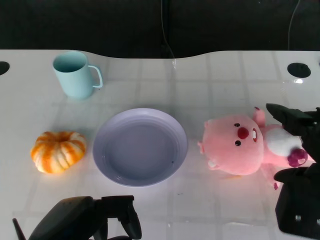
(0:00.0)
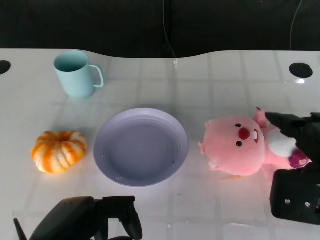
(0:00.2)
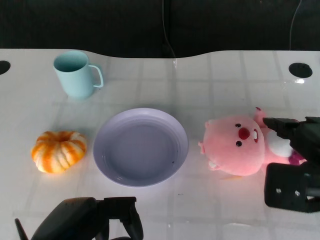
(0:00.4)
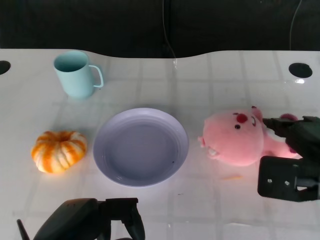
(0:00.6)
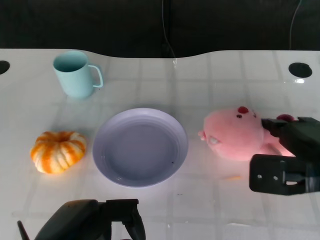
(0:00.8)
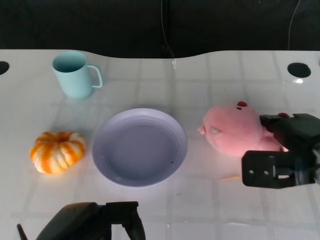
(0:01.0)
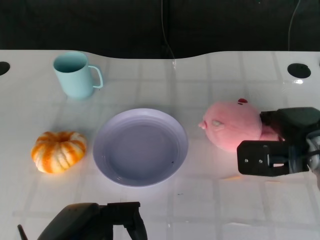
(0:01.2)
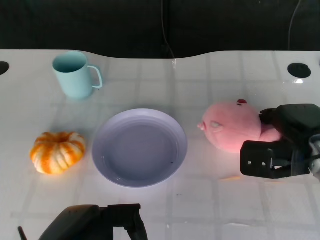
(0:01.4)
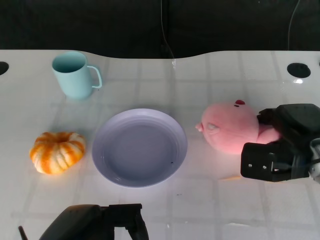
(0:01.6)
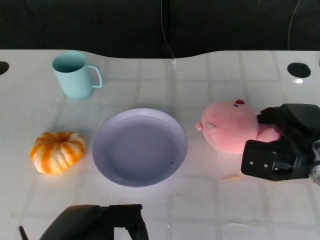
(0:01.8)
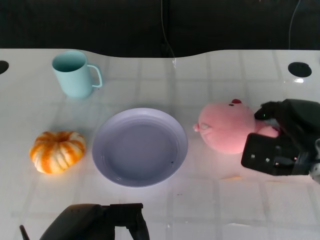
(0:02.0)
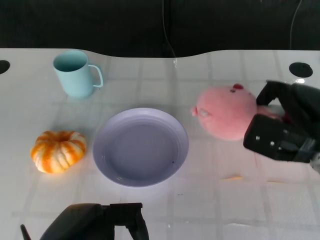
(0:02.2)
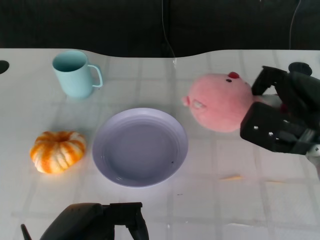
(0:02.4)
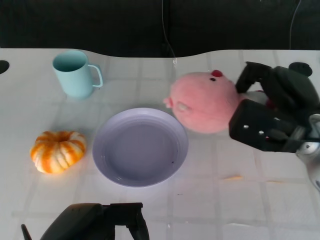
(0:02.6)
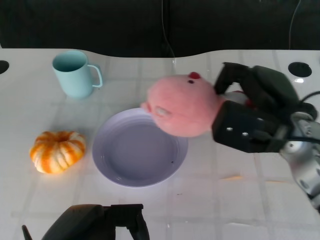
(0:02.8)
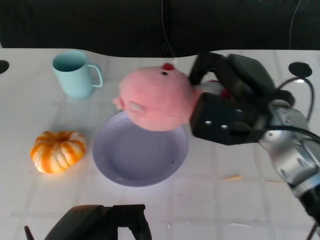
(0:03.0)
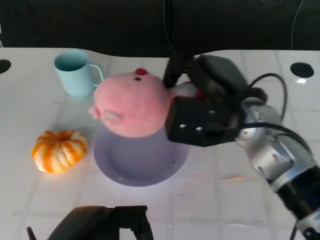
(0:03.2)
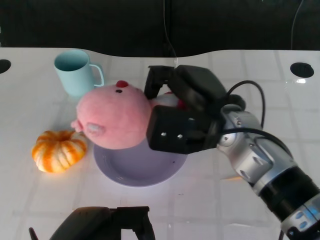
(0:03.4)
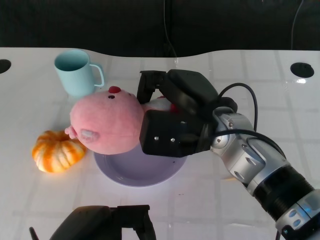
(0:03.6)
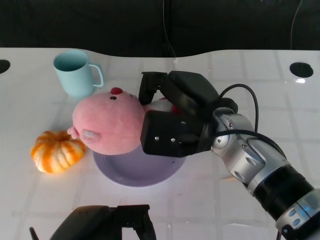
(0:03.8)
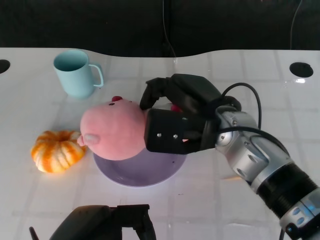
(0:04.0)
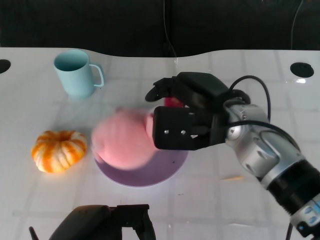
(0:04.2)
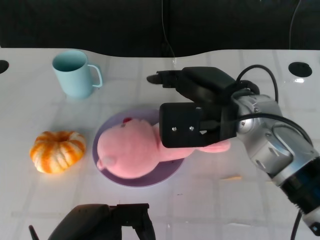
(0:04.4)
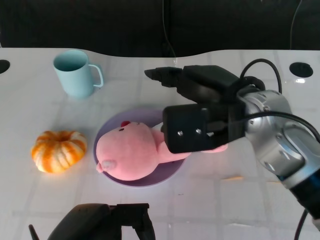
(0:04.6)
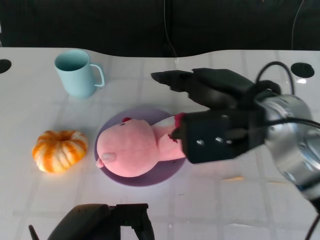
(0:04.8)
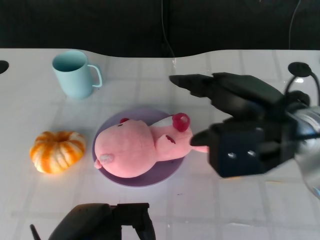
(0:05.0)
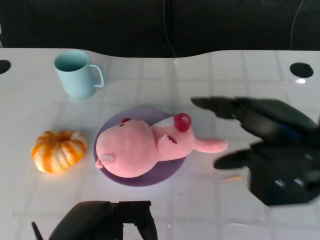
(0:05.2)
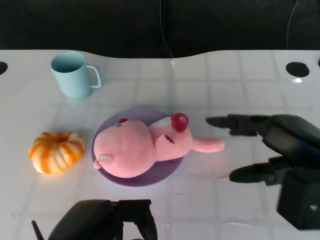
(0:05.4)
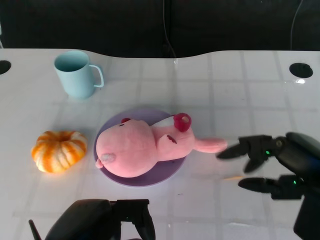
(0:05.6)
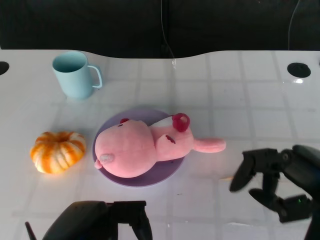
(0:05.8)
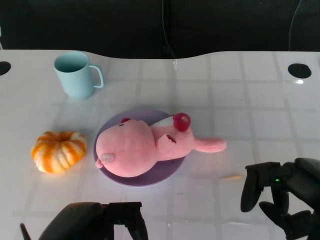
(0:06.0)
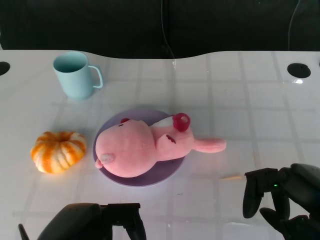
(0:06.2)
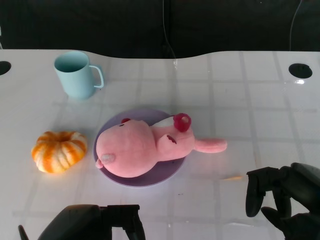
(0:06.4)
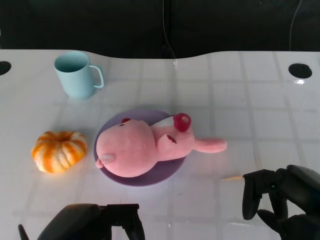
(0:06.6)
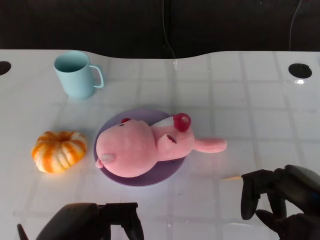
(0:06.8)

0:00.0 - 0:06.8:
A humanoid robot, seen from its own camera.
Task of the whole recording: Pick up the doll on the other side of the plate and place it into the plate.
Step, 0:00.0 - 0:02.0: Grasp the pink doll with the right gripper.
Step, 0:02.2 - 0:04.4: Place the pink doll into the plate with the right gripper.
0:00.0 - 0:01.4: The right hand shifts some 15 cm forward and downward.
0:01.4 - 0:02.8: The right hand shifts some 5 cm upward.
0:02.8 - 0:04.0: The right hand travels to the left by some 10 cm.
0:04.0 - 0:05.4: The right hand is displaced to the right and backward by about 15 cm.
0:05.4 - 0:06.8: The right hand changes place by approximately 5 cm.

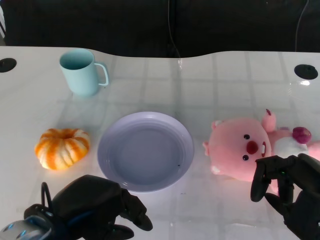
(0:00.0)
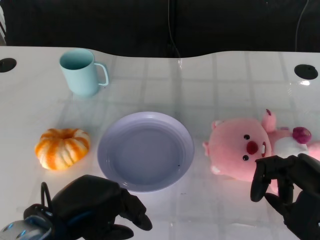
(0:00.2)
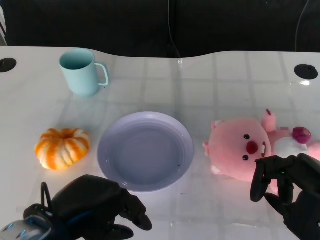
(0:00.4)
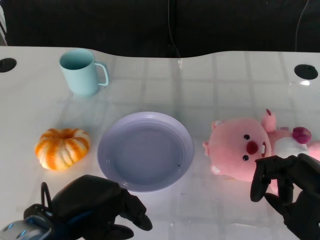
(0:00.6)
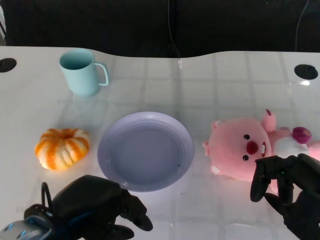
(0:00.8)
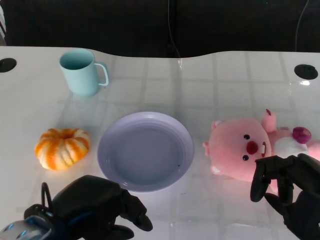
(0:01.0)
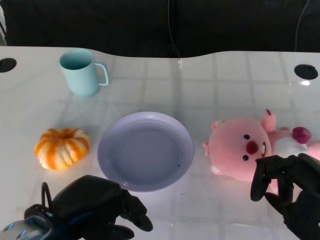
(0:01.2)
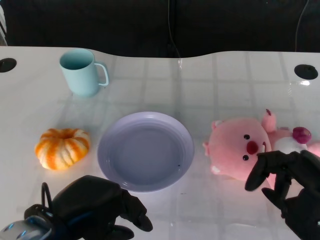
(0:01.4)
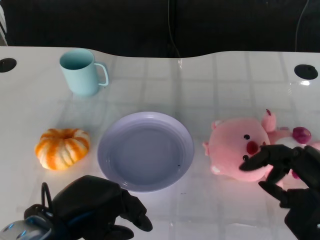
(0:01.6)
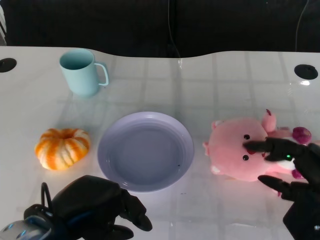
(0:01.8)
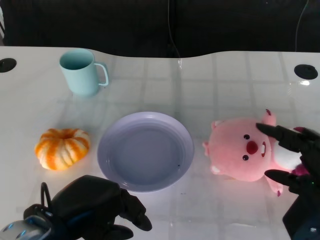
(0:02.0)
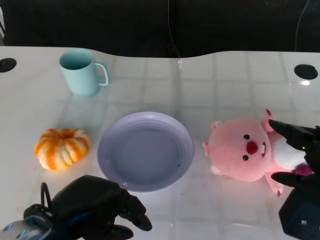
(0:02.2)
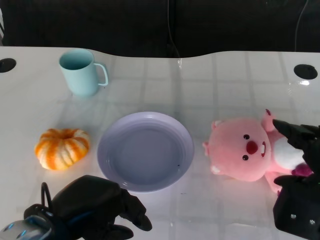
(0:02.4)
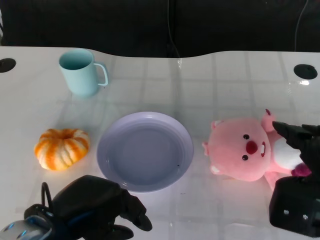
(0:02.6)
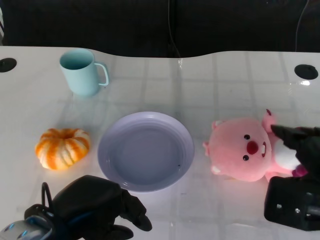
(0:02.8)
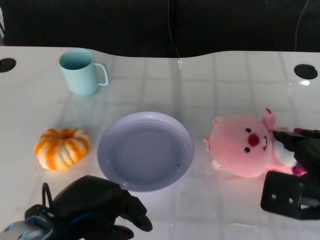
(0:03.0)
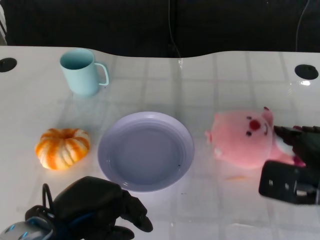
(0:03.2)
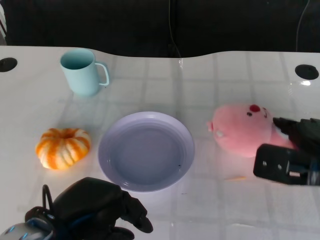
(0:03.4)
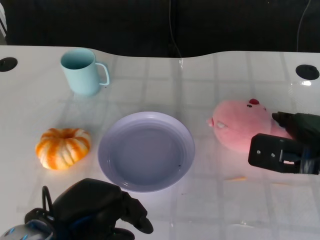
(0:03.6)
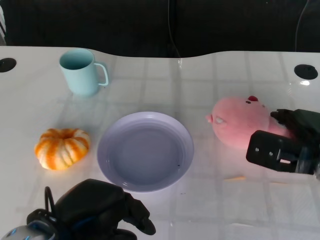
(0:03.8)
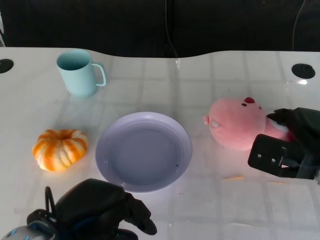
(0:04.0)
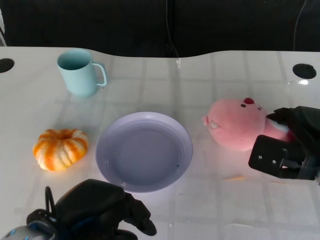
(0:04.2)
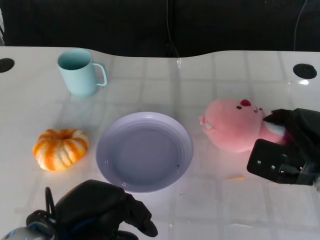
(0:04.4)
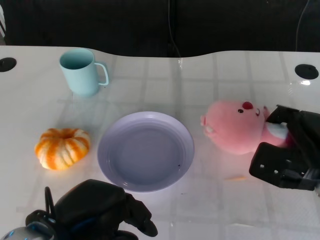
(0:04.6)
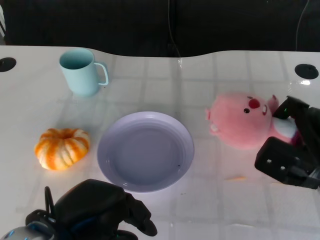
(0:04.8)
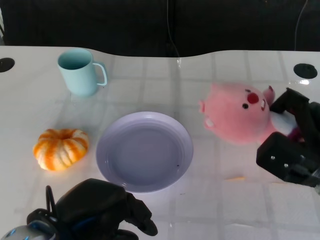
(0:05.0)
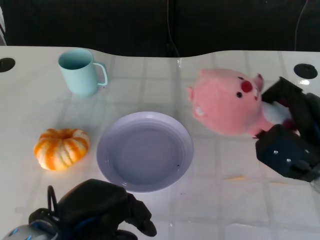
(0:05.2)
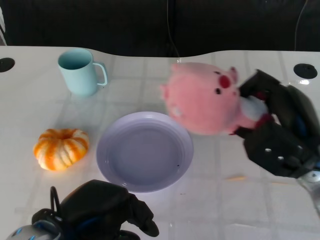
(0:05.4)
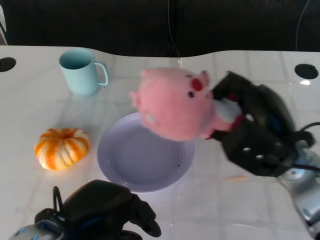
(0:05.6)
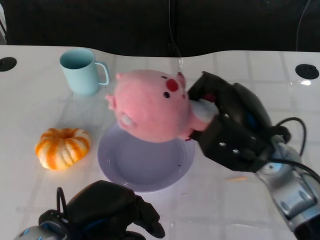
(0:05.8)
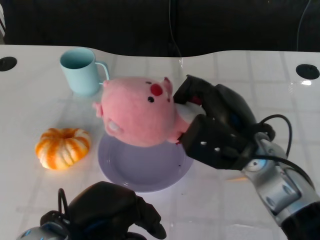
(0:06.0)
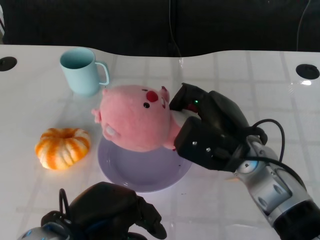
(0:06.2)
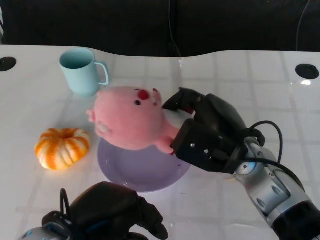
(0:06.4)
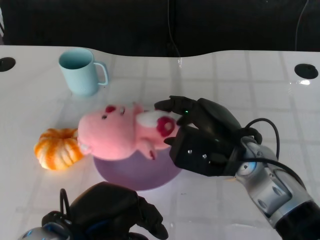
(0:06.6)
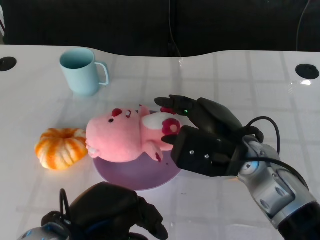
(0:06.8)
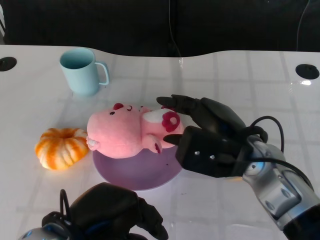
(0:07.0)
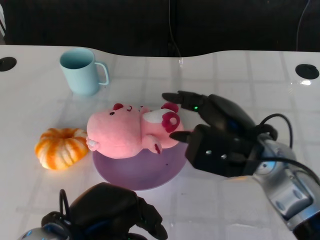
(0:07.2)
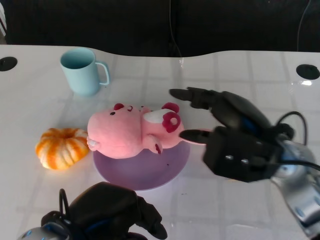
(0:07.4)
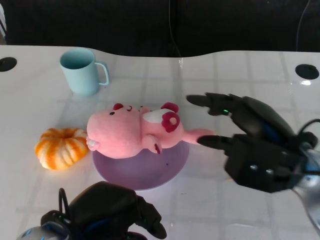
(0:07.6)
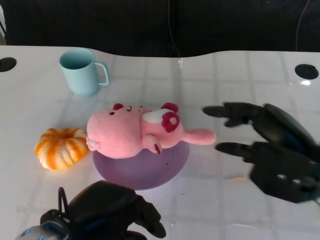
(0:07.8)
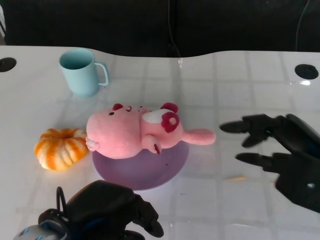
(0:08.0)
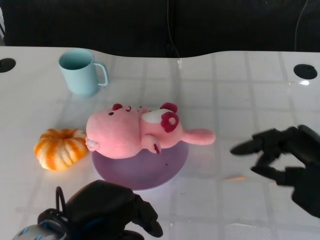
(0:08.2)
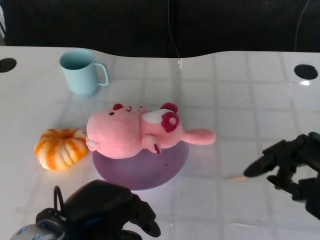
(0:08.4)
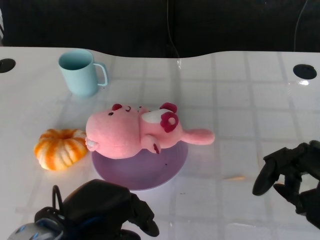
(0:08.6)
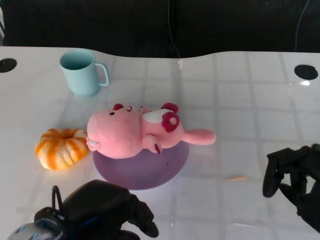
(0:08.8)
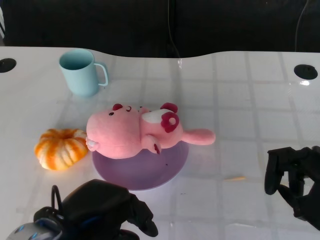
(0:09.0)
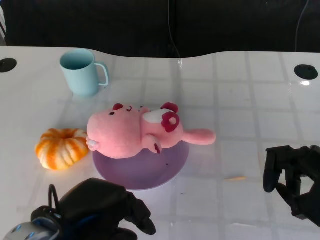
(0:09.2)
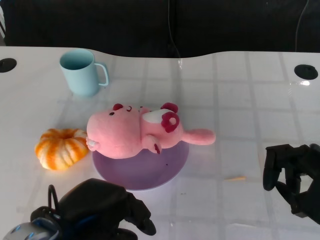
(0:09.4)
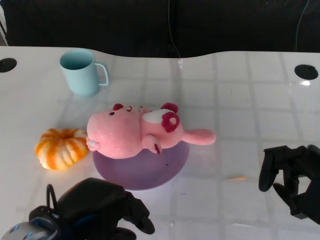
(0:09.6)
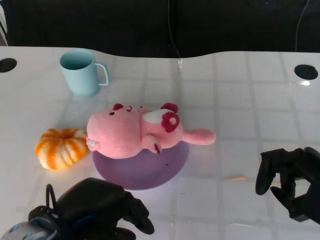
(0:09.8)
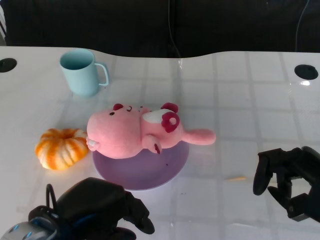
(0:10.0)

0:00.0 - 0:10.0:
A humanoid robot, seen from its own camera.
Task of the whole recording: Pick up the doll on the other side of the plate and place it into the plate.
Step, 0:01.4 - 0:05.6: Grasp the pink doll with the right gripper.
Step, 0:05.8 - 0:07.4: Place the pink doll into the plate with the right gripper.
0:02.8 - 0:04.2: The right hand heads forward and downward, covering about 10 cm.
0:04.2 - 0:05.8: The right hand goes some 10 cm to the left and upward.
0:05.8 - 0:07.2: The hands move only a little.
0:07.2 - 0:08.6: The right hand moves to the right and backward, about 15 cm.
0:08.6 - 0:10.0: There are only small adjustments of the hands.

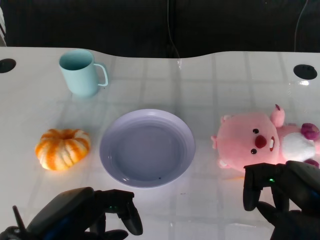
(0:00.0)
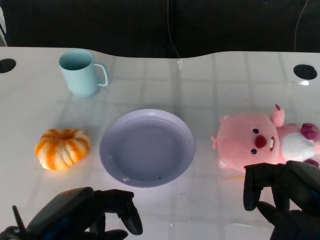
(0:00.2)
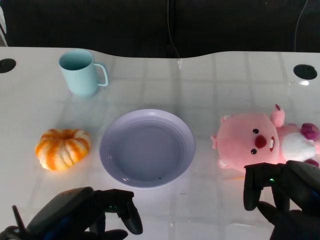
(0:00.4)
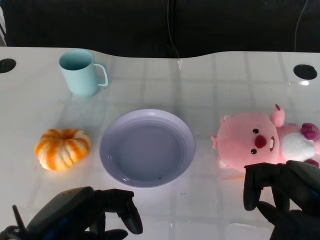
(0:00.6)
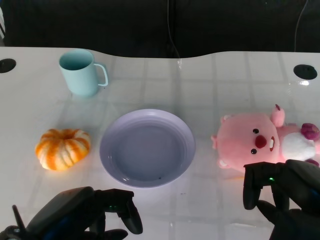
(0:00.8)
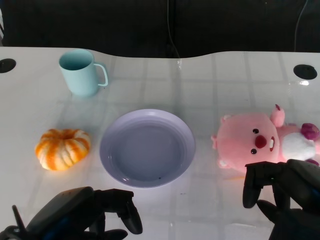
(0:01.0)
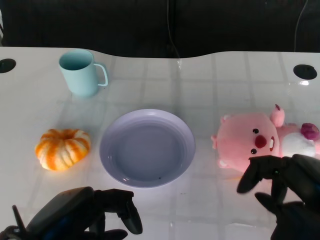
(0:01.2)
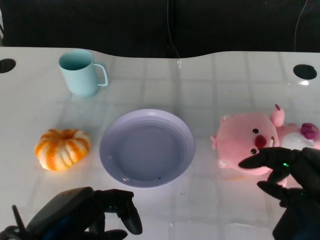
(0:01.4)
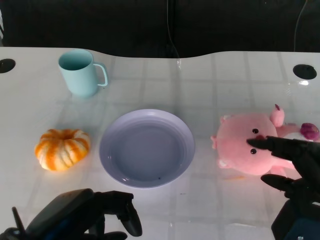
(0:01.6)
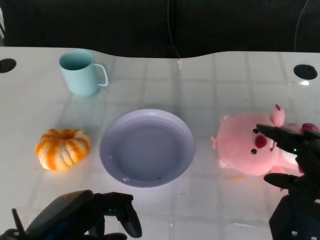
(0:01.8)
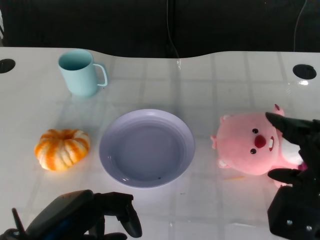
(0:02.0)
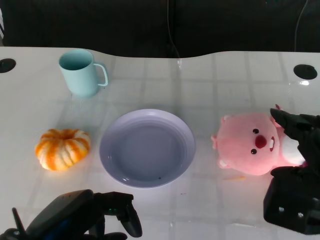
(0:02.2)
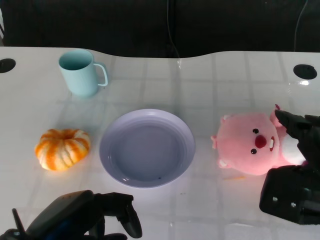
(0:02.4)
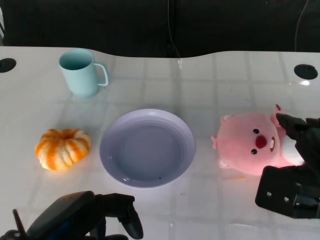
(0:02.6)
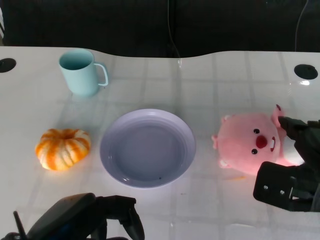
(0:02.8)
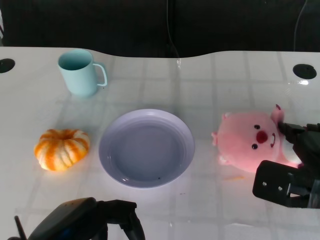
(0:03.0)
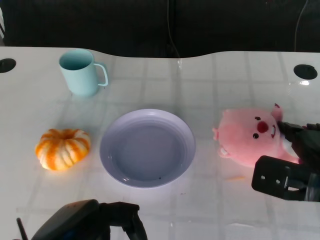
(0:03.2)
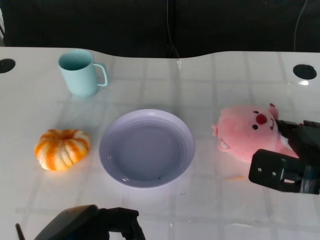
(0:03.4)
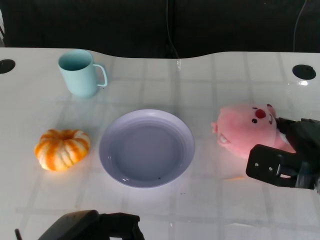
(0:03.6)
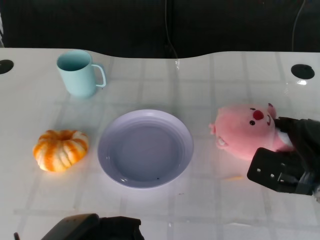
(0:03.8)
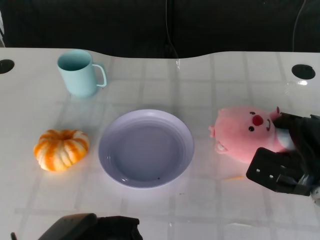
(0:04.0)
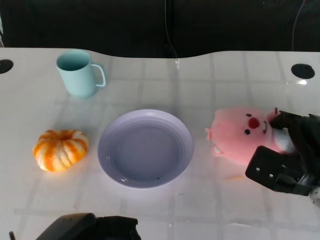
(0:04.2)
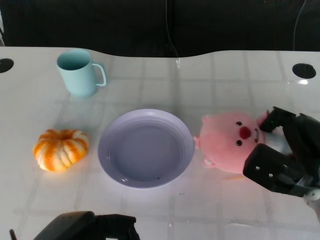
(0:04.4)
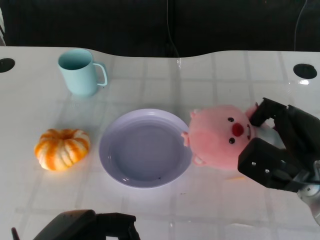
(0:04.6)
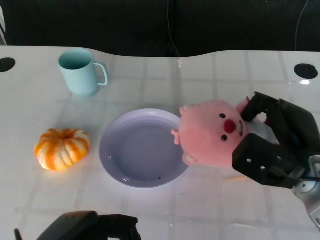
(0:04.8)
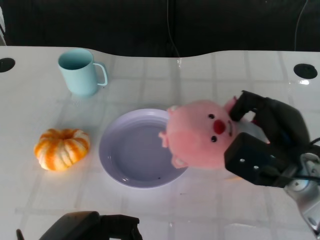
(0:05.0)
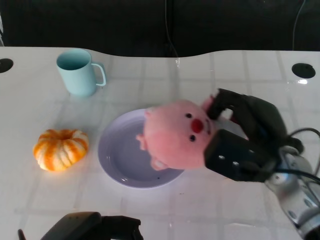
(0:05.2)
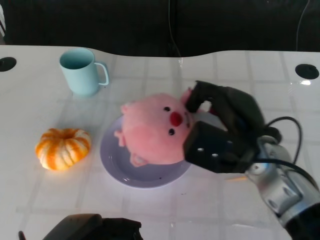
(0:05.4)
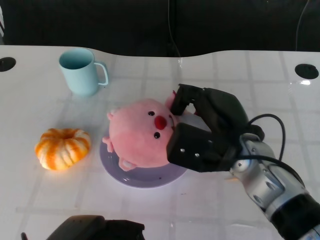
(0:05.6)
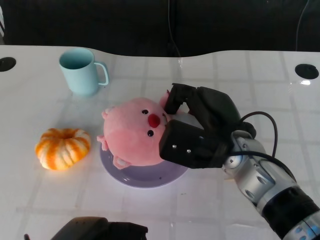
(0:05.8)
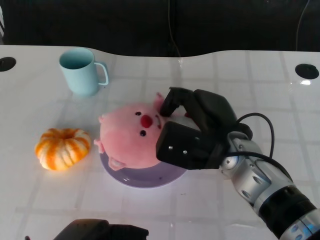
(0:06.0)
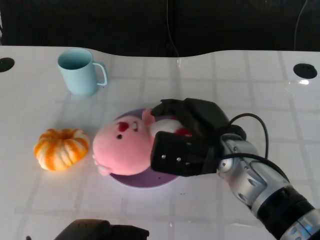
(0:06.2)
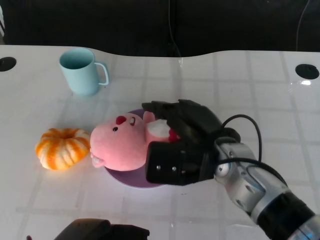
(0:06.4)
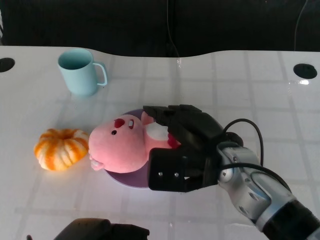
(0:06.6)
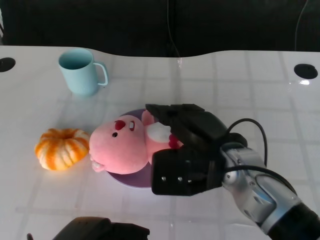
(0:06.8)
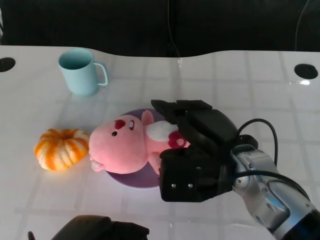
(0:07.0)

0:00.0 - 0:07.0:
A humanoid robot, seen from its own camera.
Task of the whole recording: Pick up the doll on the other side of the plate and place it into the plate.
Step, 0:01.0 - 0:05.0: Grasp the pink doll with the right gripper.
0:01.4 - 0:02.8: The right hand moves forward, roughly 5 cm.
0:02.8 - 0:04.2: The right hand travels downward by about 5 cm.
0:04.2 - 0:05.6: The right hand shifts about 15 cm to the left and upward.
0:05.6 - 0:07.0: There are only small adjustments of the hands.
